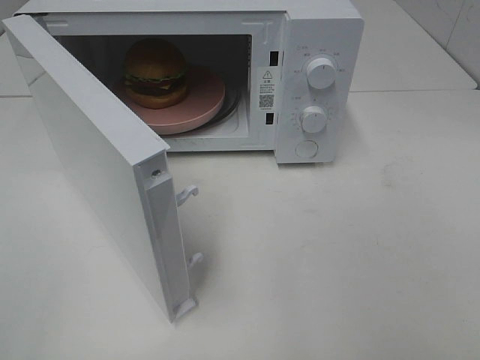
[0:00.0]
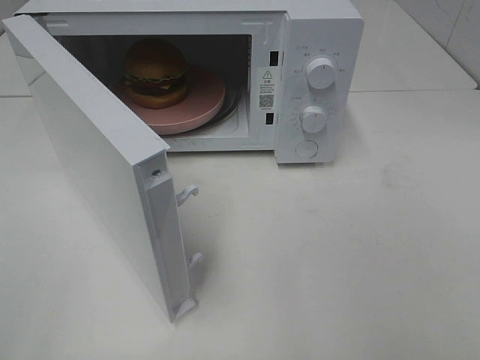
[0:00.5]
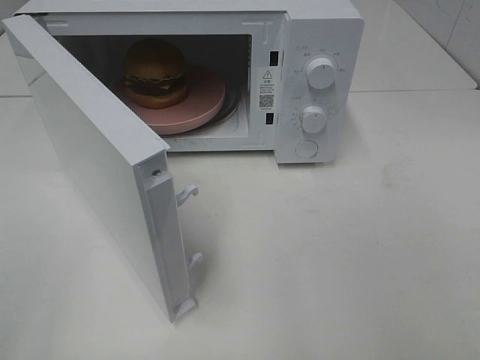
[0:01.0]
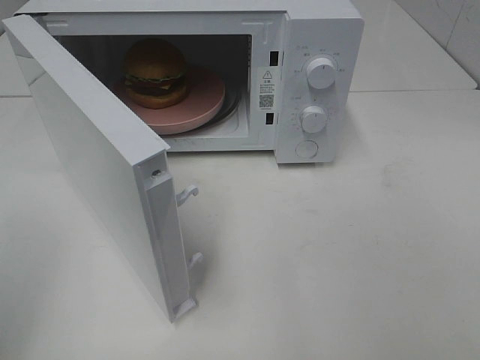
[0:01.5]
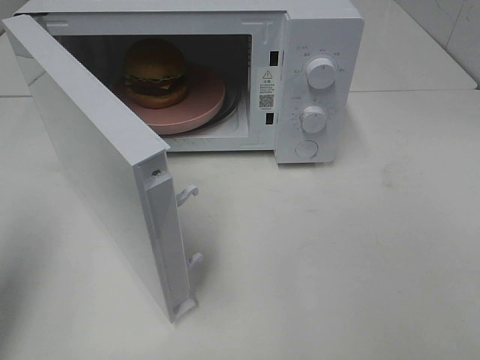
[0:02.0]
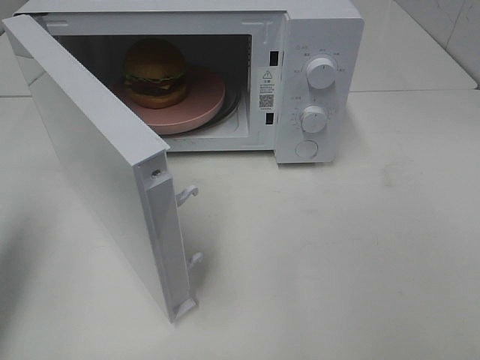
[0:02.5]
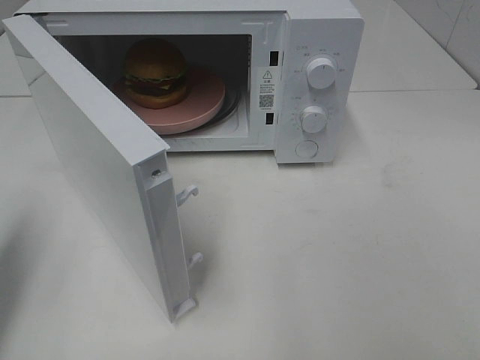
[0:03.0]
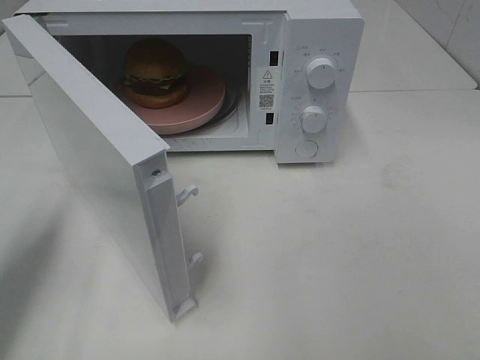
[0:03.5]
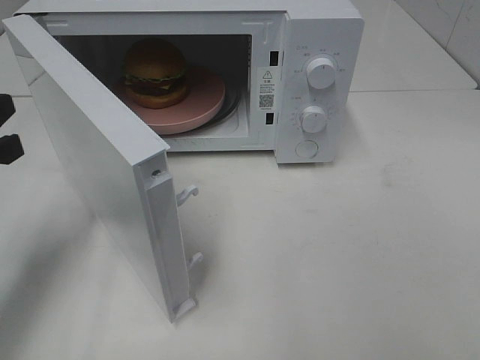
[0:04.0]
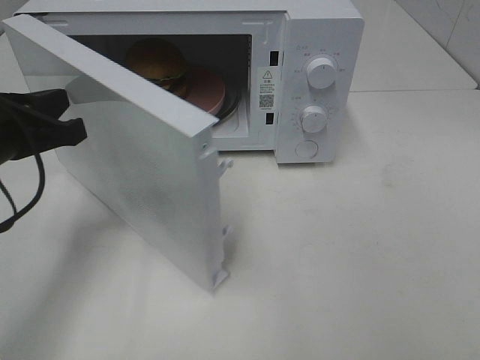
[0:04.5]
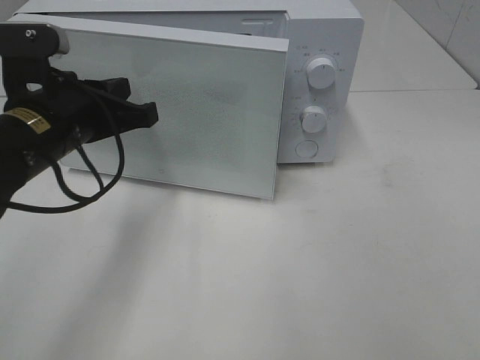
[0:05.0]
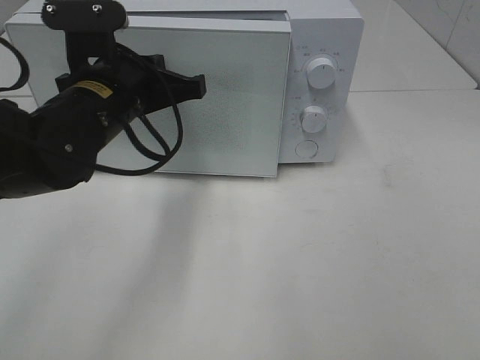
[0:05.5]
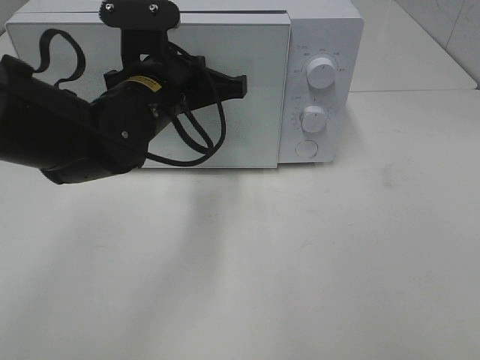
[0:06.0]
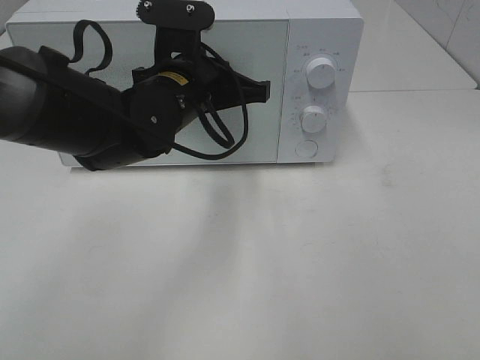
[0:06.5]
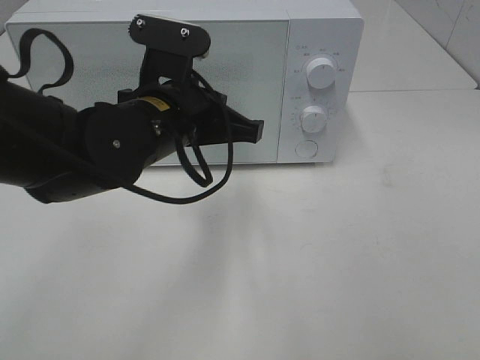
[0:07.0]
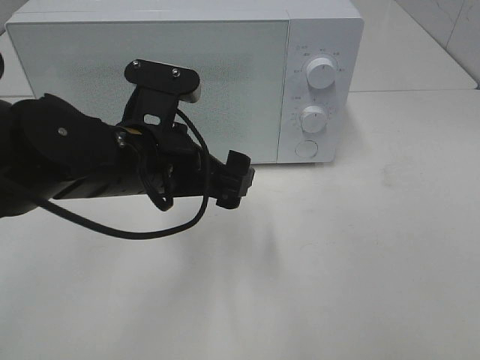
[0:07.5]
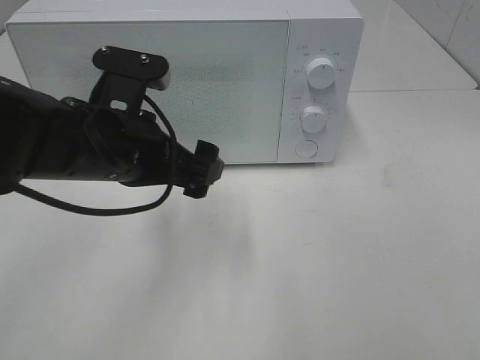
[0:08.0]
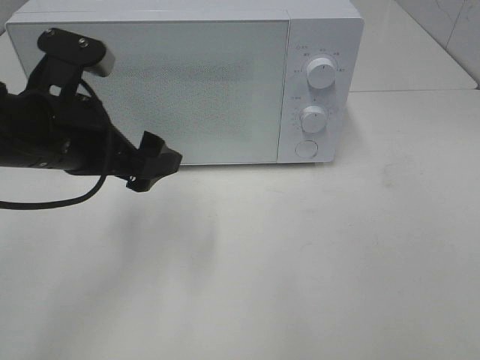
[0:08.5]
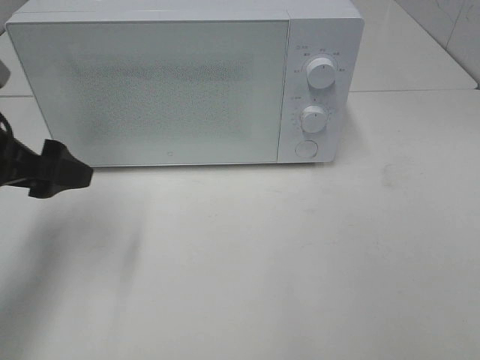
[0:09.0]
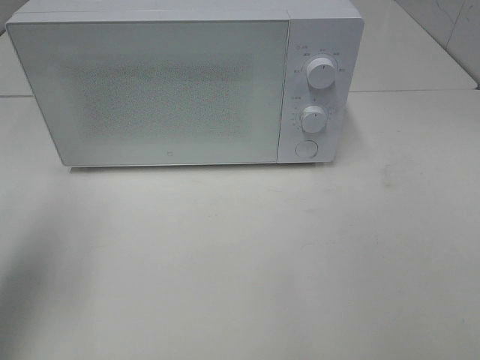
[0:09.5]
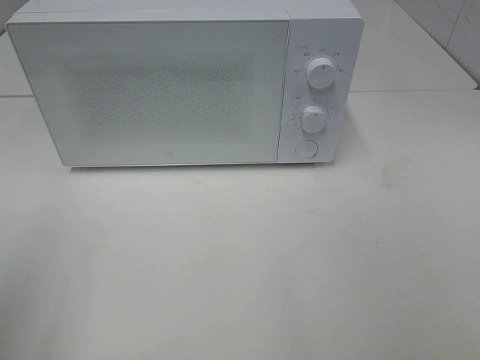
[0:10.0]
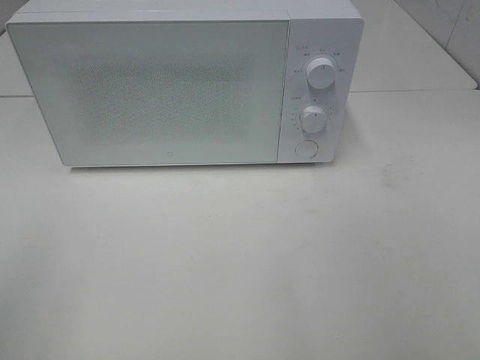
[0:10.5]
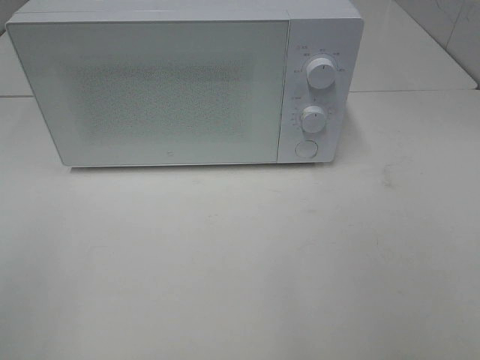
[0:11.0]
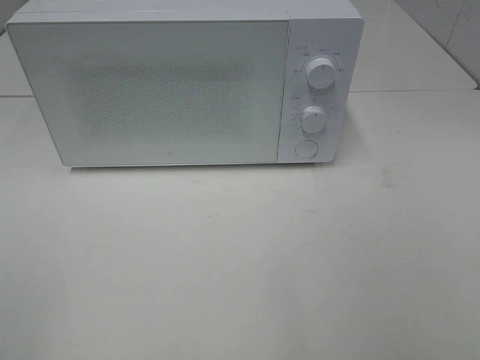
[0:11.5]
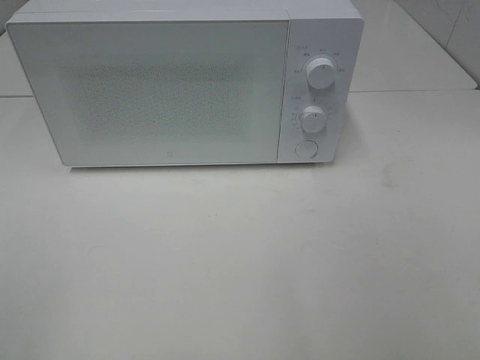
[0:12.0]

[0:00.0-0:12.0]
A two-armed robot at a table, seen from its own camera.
Task of the whole recording: Heat the burger.
Step, 0:00.0 to 0:07.5: Left hand: close the microwave door.
0:00.0 to 0:02.0: The left gripper goes about 15 cm forward, and closes.
0:02.0 to 0:04.0: The left gripper shifts some 10 cm downward and forward.
0:04.0 to 0:06.0: The left gripper travels to the right and forward by about 20 cm.
0:06.0 to 0:08.0: The left gripper shifts approximately 10 cm backward, and opens its fingers.
0:08.0 to 0:10.0: The left gripper travels to the left, backward and upward by about 25 cm.

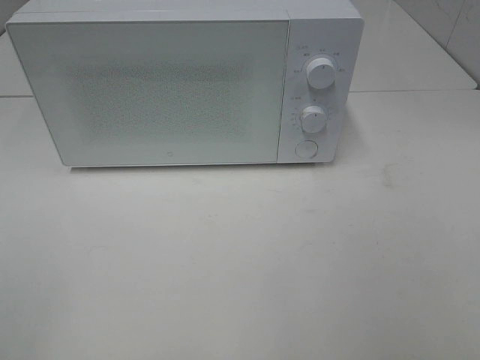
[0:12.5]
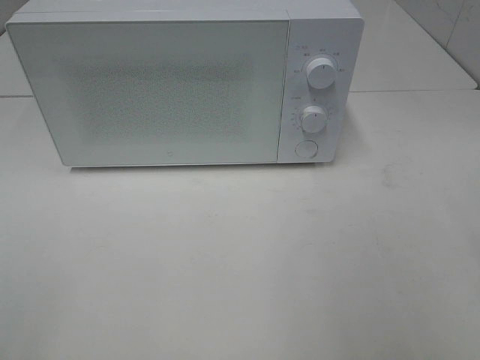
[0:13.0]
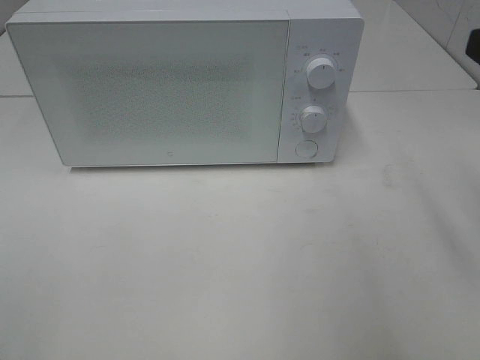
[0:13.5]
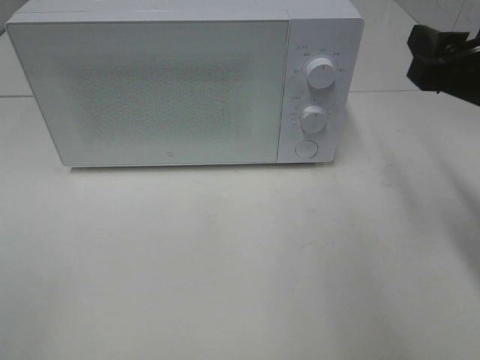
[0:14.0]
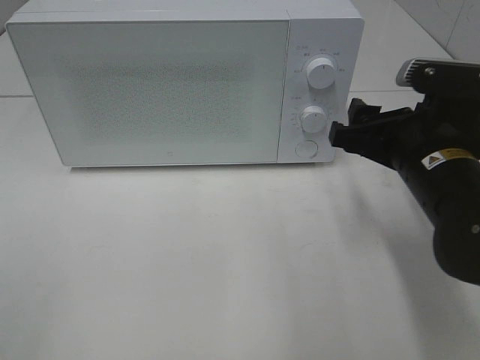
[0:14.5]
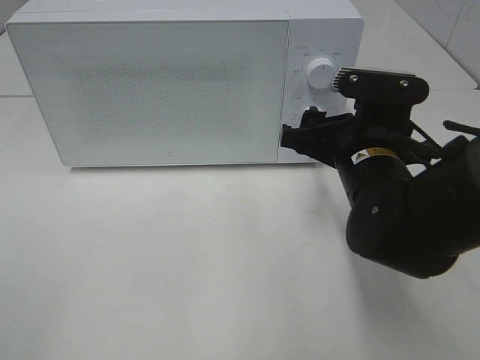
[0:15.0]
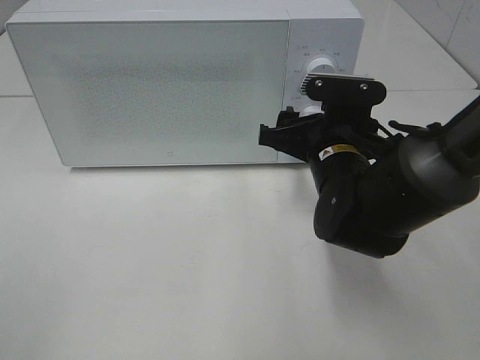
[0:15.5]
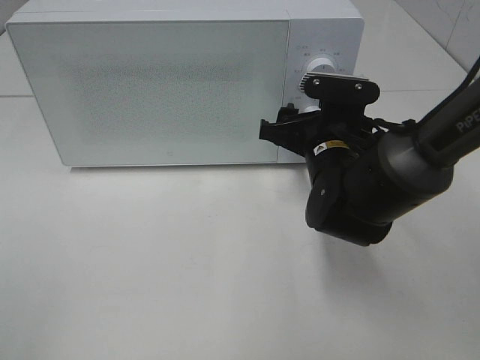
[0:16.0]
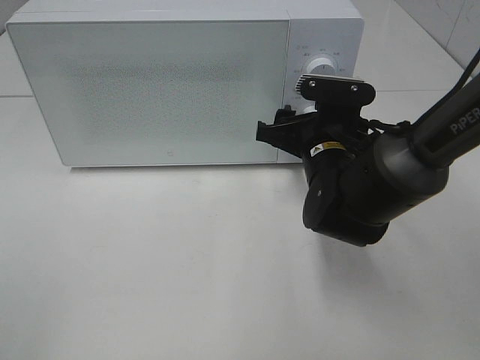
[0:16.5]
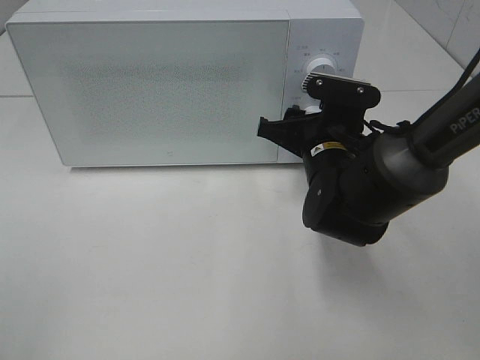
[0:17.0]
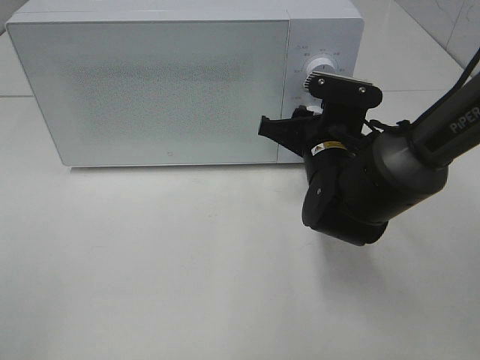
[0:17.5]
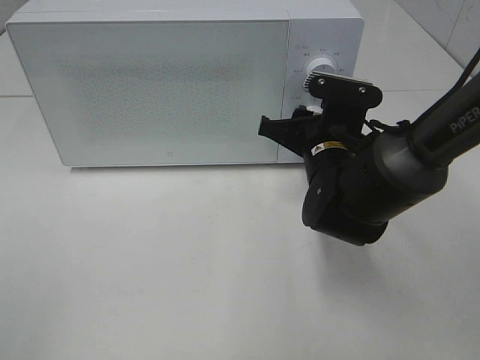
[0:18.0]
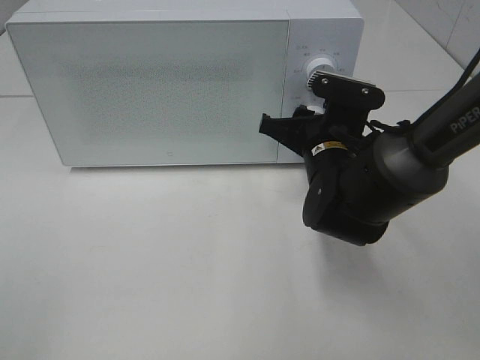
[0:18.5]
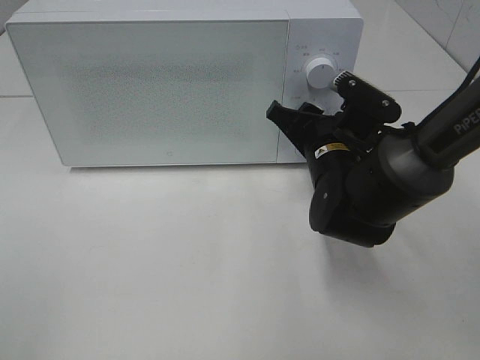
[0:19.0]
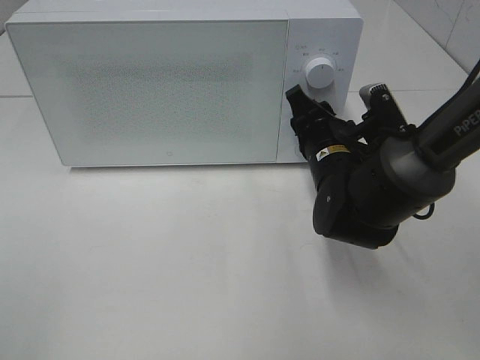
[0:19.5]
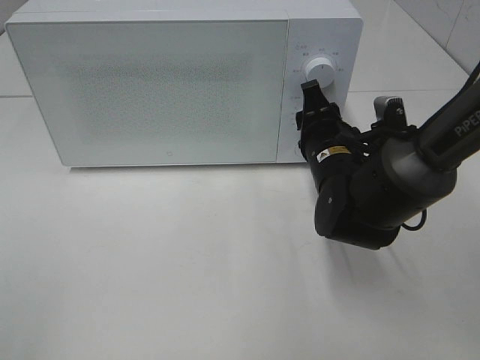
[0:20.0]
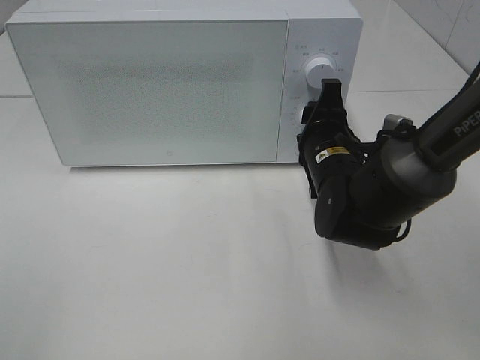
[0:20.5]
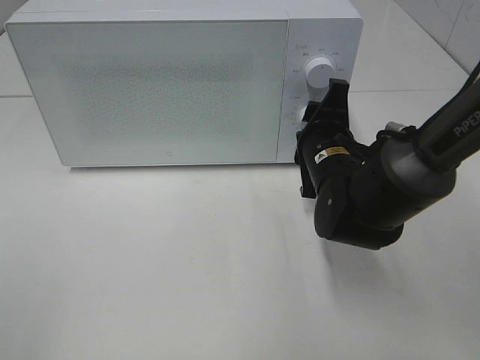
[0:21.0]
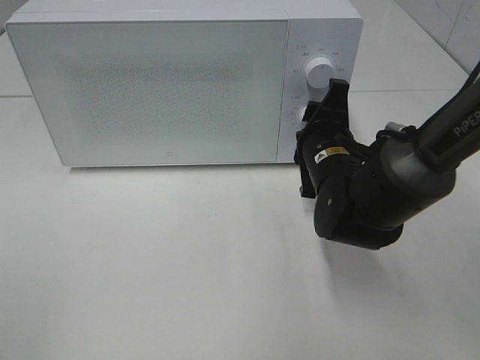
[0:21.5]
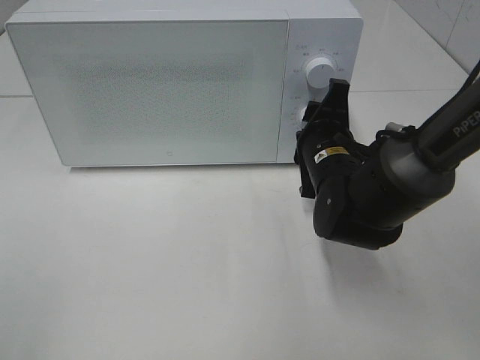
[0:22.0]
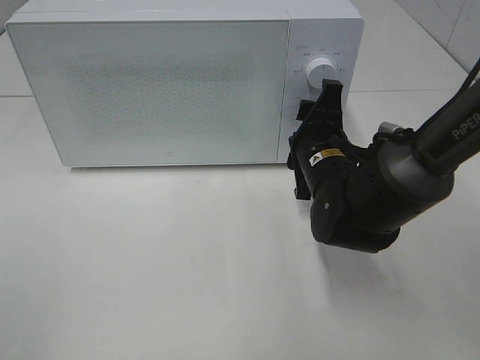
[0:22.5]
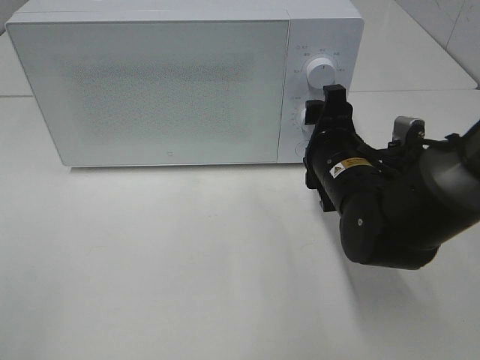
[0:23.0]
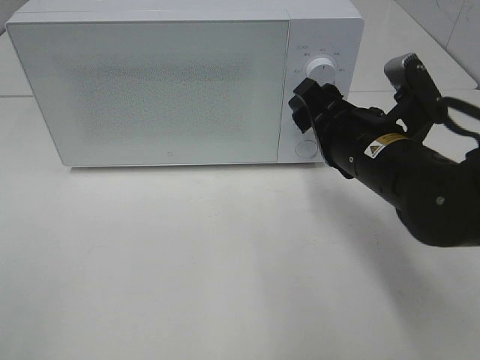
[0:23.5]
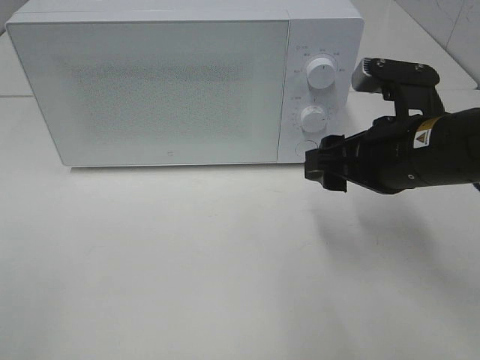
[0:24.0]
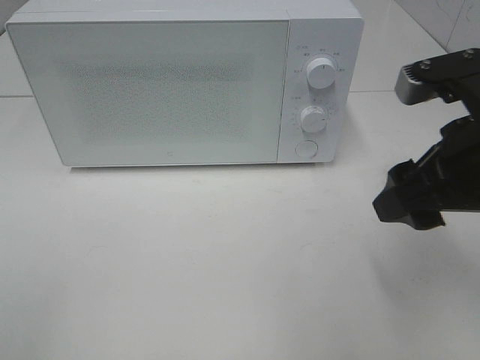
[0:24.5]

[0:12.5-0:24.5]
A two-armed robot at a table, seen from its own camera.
Task of the whole recording: Heat the burger.
Step, 0:12.5 to 0:22.5: Right hand: twist timer button.
0:12.5 to 0:14.5: The right gripper heads forward, downward and to the left, covering roughly 30 cm.
0:14.5 to 0:16.5: The right gripper moves forward, to the left and downward, approximately 10 cm.
0:16.5 to 0:18.5: The grippers make only small movements.
0:20.5 to 0:22.5: There are only small adjustments of the grippers.
0:22.5 to 0:24.5: The right gripper moves upward, backward and to the right, approximately 20 cm.

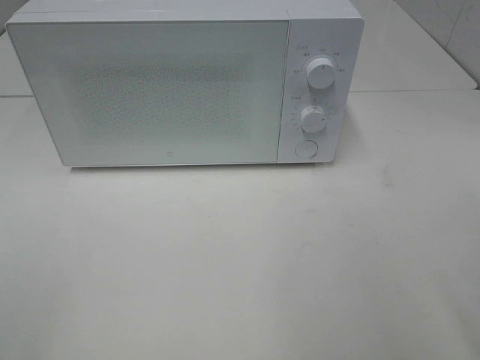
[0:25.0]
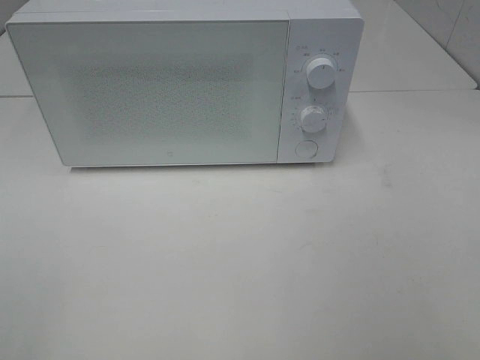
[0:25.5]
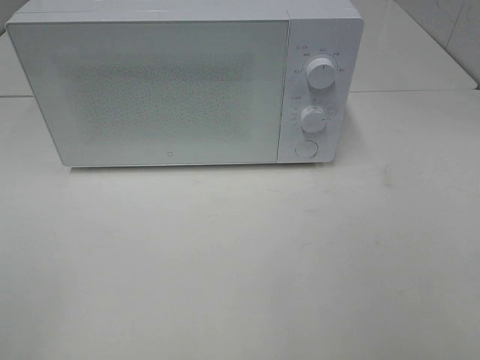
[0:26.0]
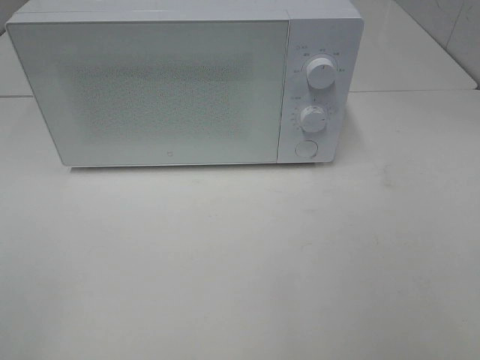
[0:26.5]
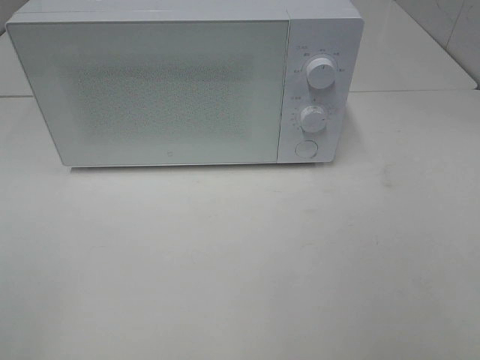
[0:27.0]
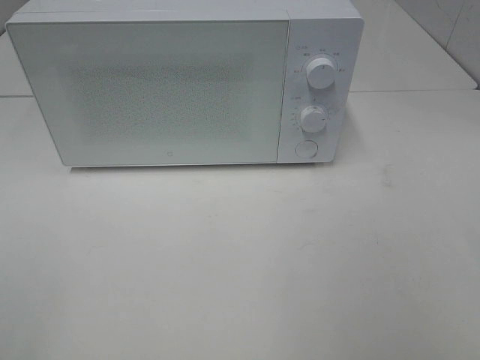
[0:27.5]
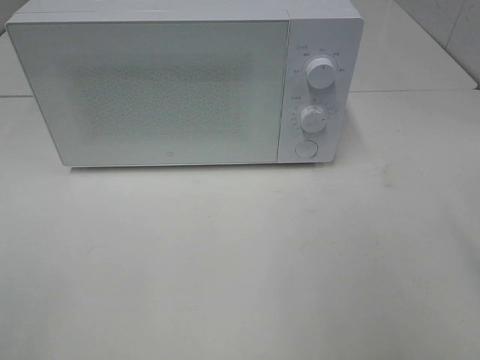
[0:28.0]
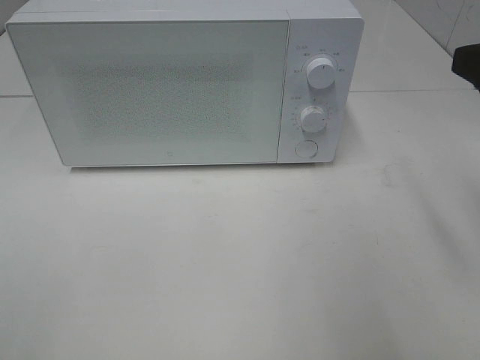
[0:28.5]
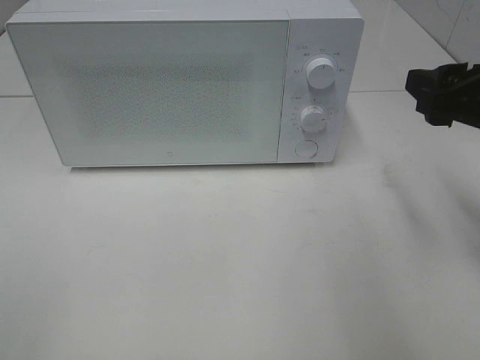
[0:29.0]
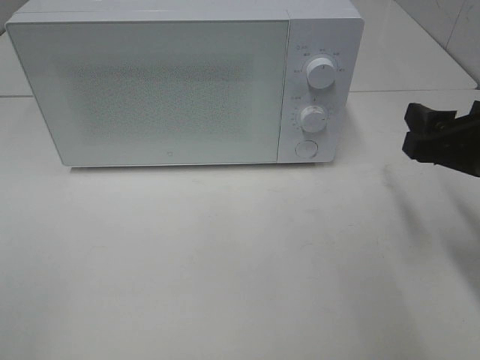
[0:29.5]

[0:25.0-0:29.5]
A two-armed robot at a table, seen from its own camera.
Task of the whole recording: Heat the burger.
0:27.0 to 0:29.5: The right gripper shifts some 25 cm forward and downward.
